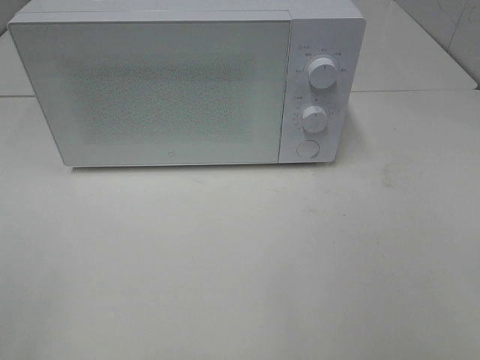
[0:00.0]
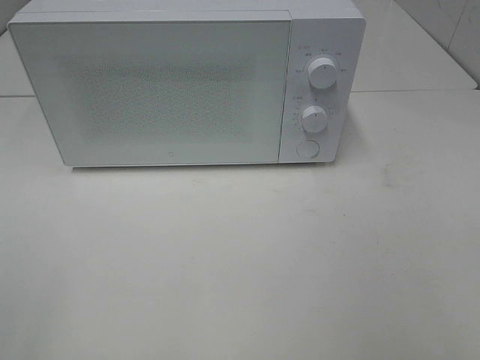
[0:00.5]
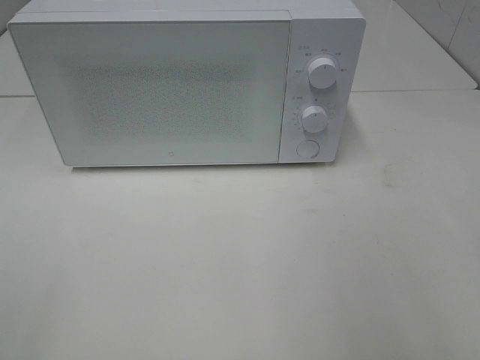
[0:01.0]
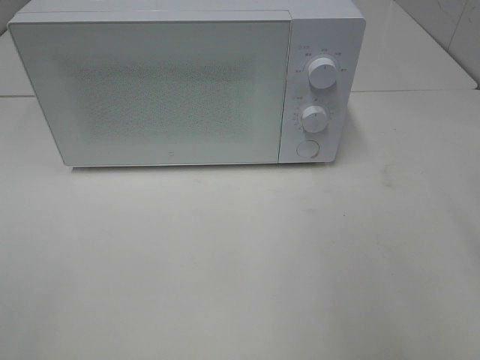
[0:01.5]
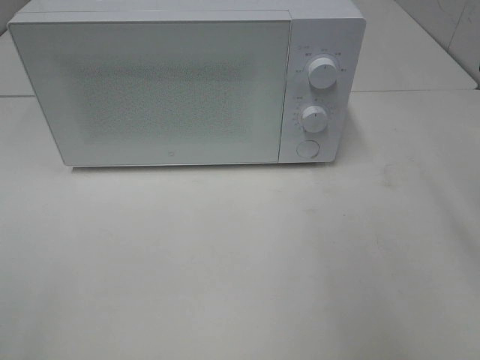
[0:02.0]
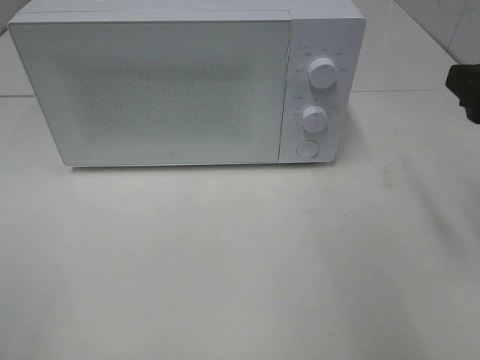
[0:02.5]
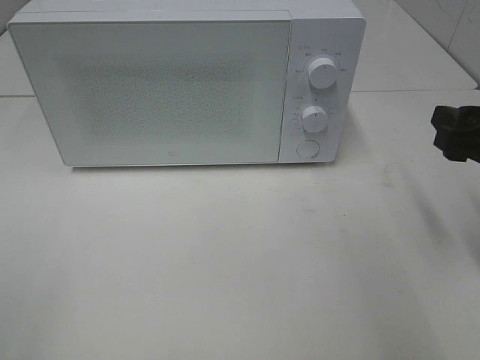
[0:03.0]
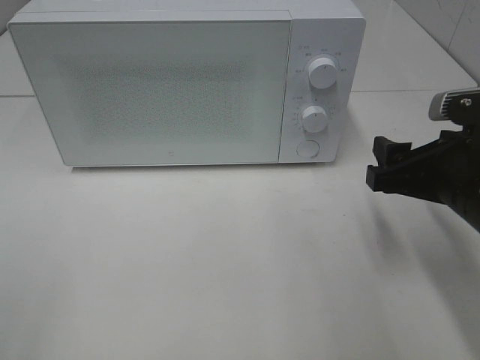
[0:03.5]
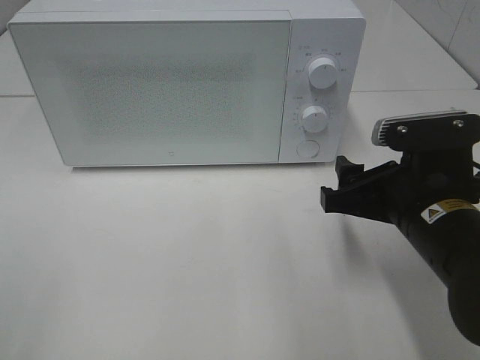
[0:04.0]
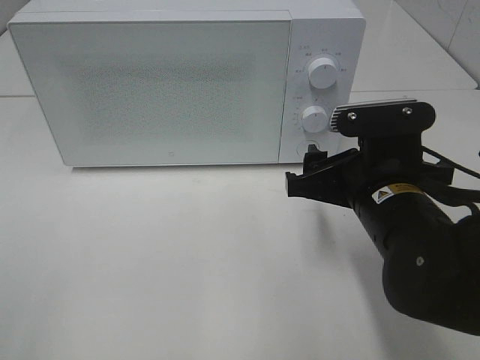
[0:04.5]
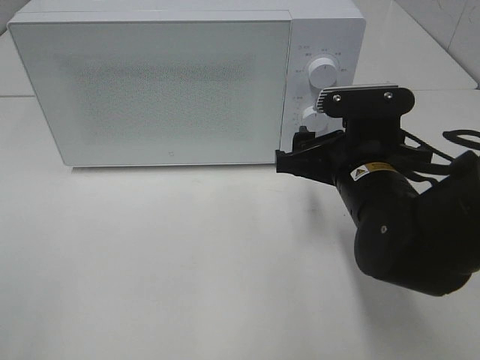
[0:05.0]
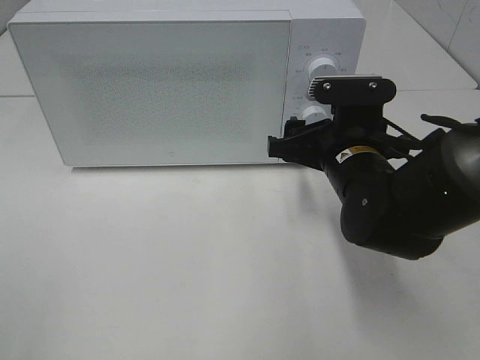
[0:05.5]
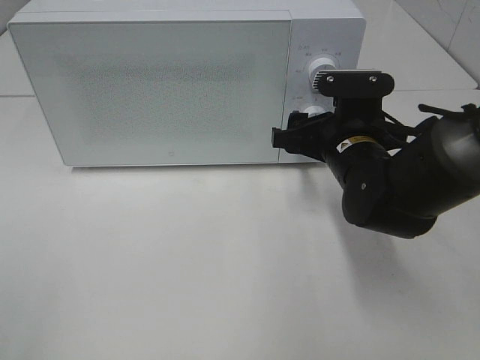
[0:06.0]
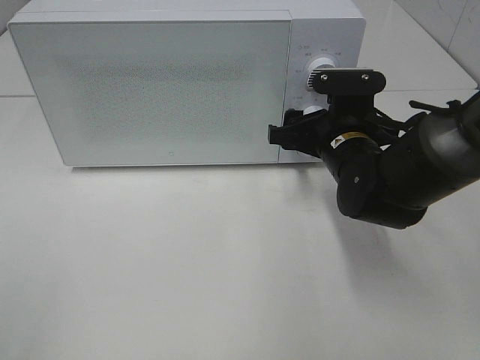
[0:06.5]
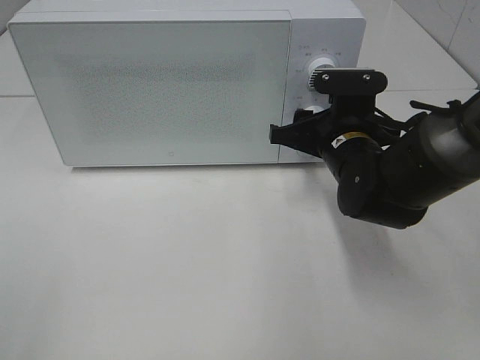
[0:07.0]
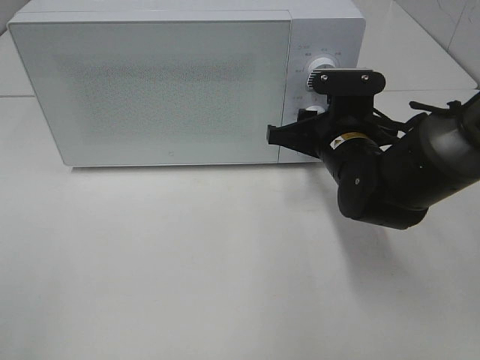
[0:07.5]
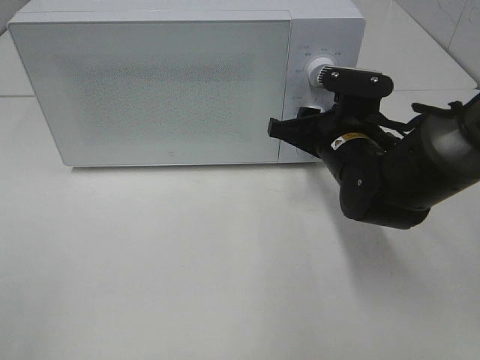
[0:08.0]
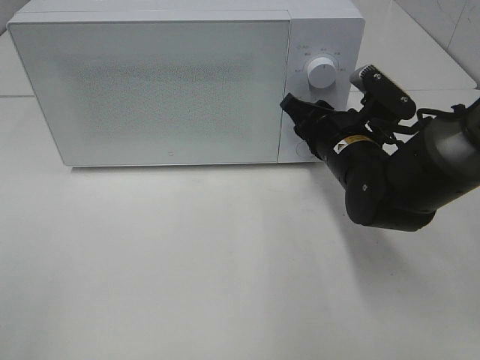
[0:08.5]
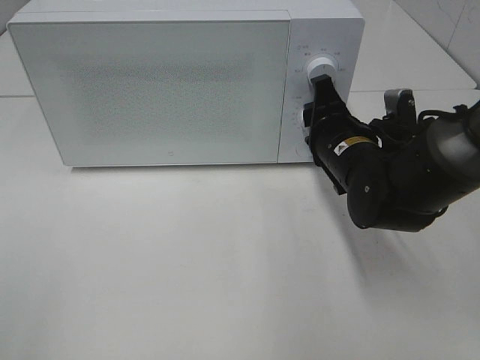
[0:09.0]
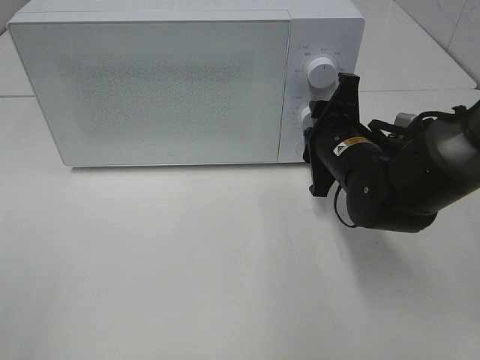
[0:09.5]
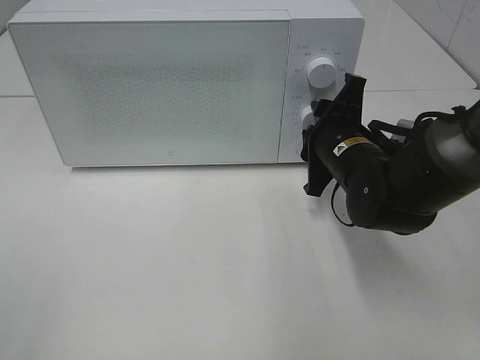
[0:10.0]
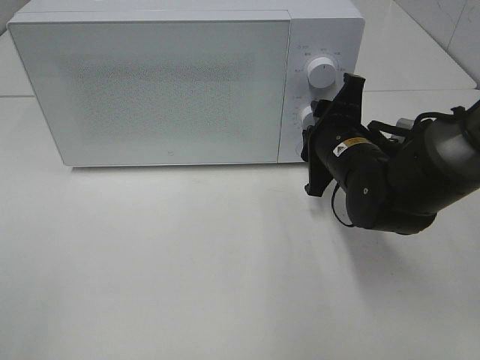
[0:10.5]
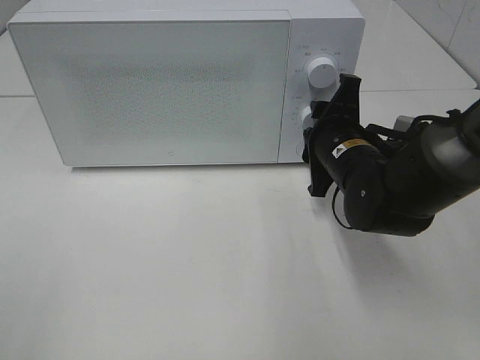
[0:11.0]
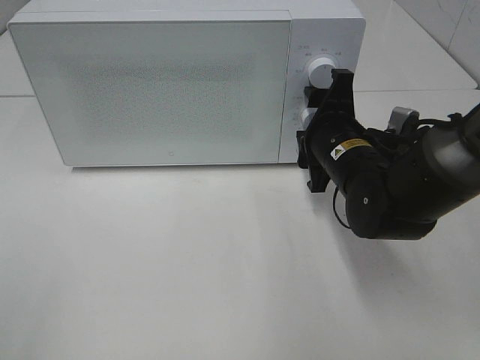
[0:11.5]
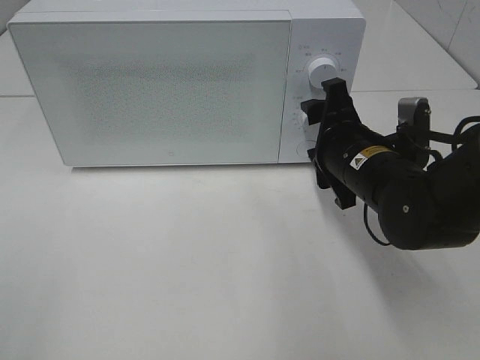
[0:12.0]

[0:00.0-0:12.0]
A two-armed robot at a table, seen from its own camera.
Task of the whole recording: Heat the burger.
Step, 0:00.0 to 0:11.5: Right hand: twist timer button.
0:02.0 to 0:04.0: The right gripper shifts approximately 20 cm downward and to the left.
0:04.0 to 0:06.0: The right gripper moves forward, roughly 10 cm.
0:06.0 to 0:08.0: The right gripper closes.

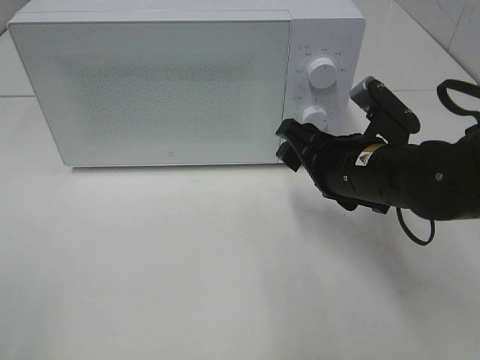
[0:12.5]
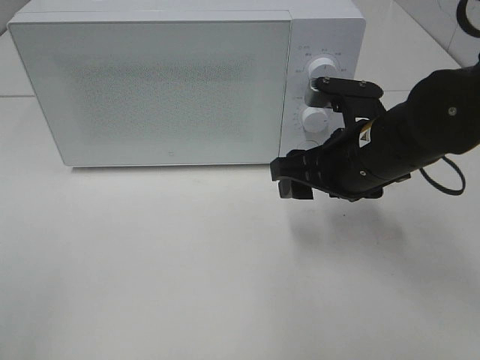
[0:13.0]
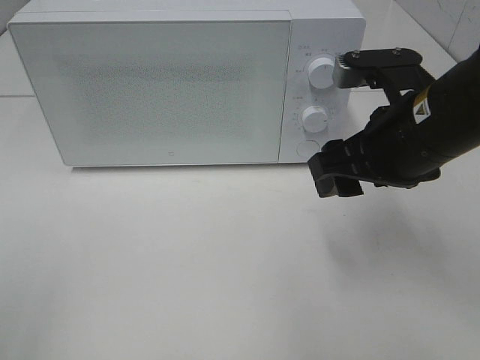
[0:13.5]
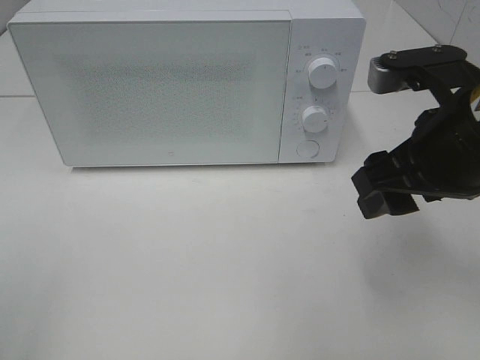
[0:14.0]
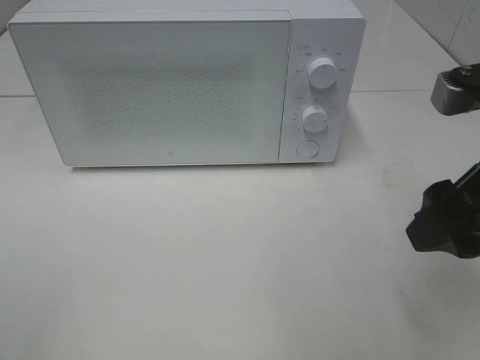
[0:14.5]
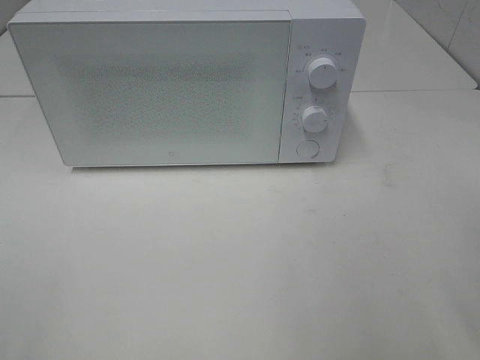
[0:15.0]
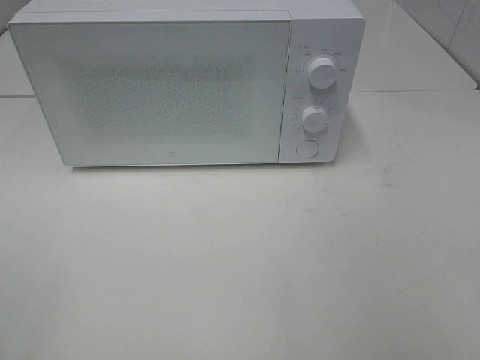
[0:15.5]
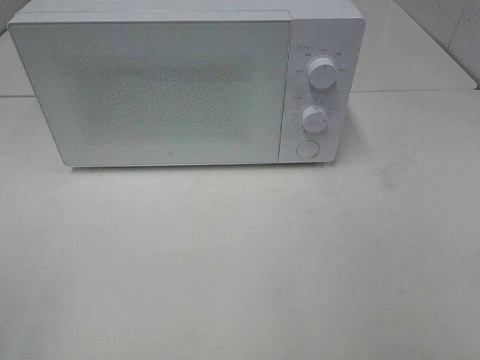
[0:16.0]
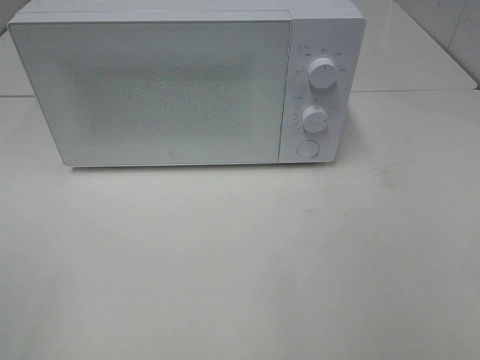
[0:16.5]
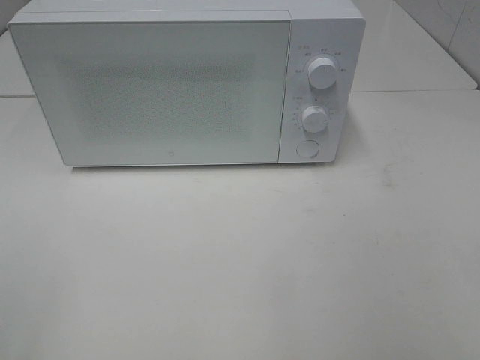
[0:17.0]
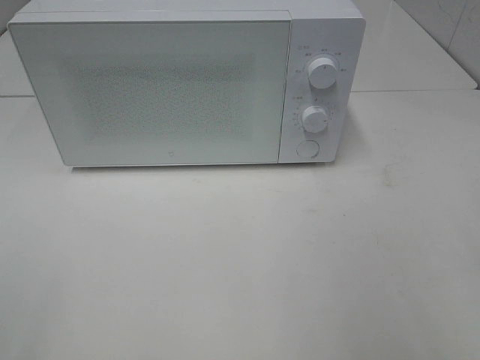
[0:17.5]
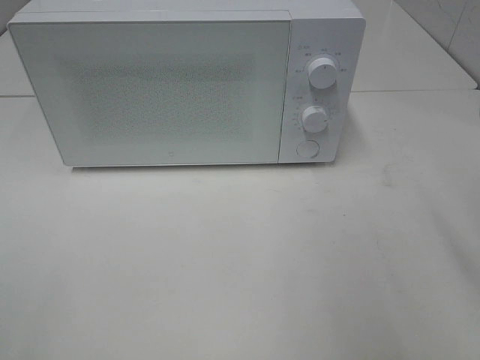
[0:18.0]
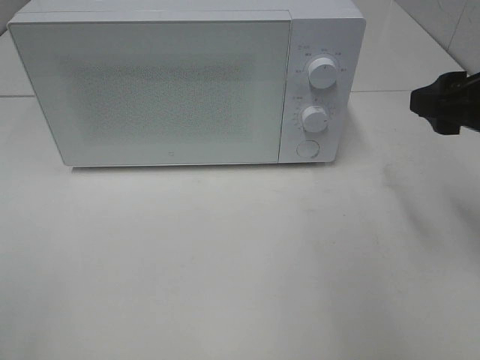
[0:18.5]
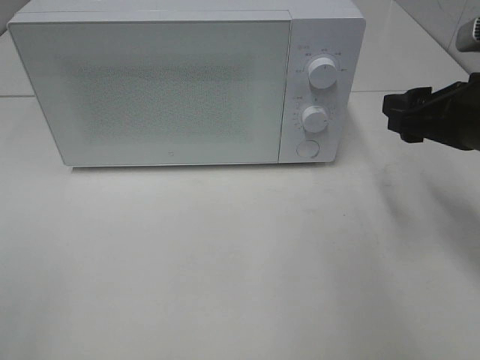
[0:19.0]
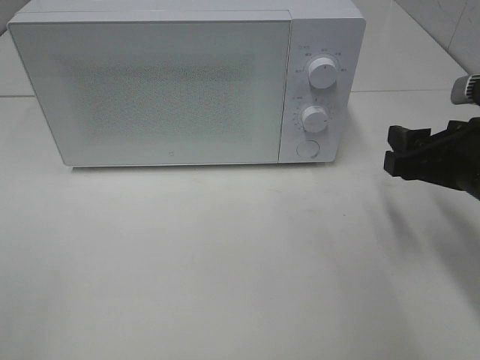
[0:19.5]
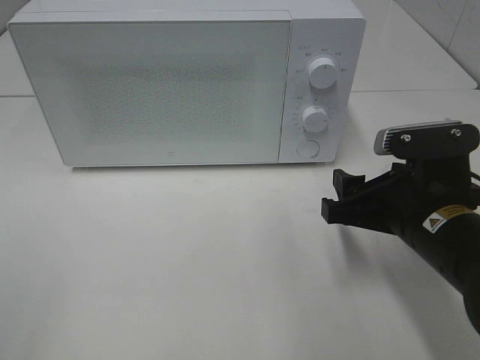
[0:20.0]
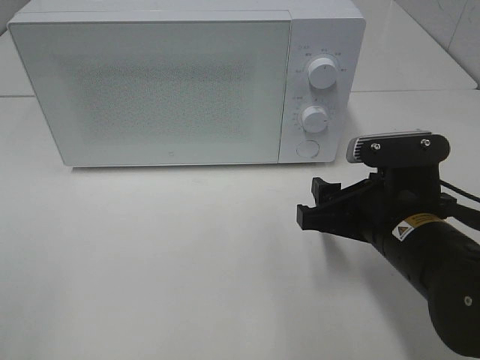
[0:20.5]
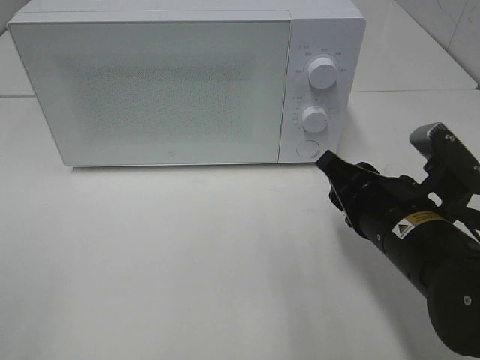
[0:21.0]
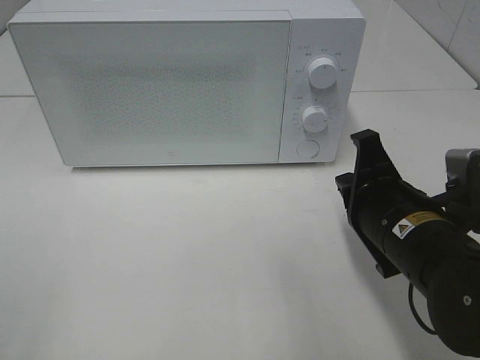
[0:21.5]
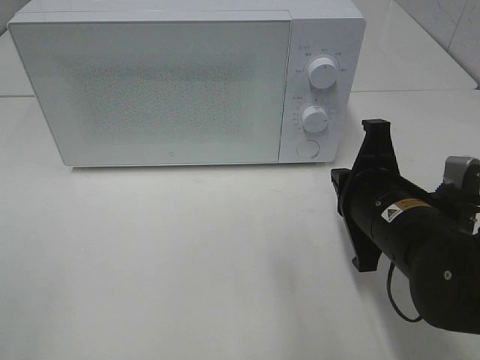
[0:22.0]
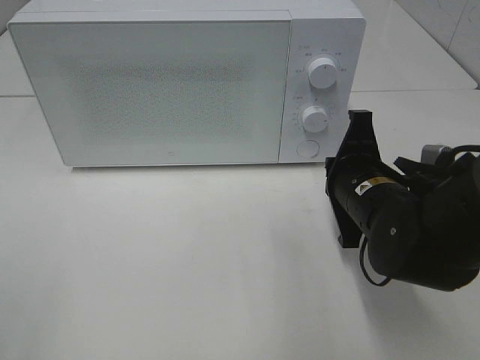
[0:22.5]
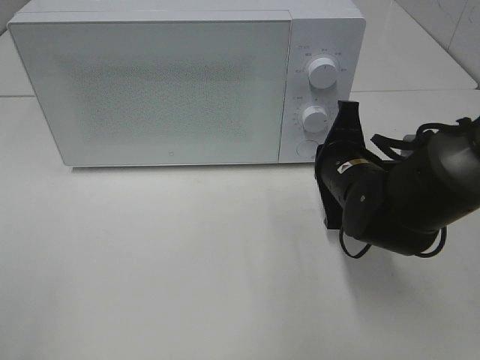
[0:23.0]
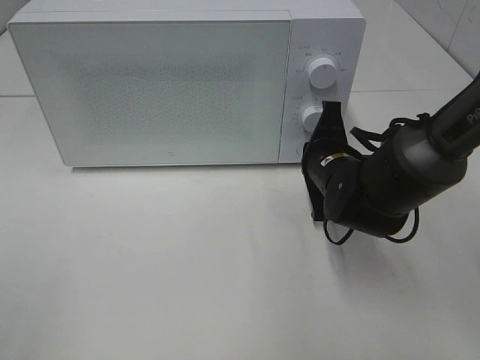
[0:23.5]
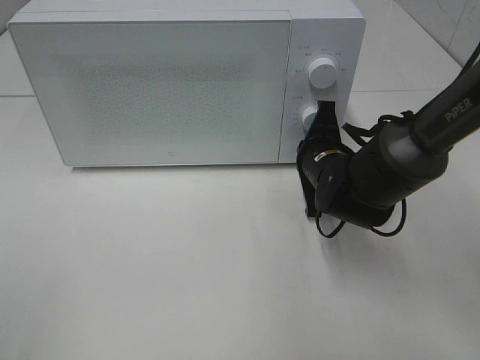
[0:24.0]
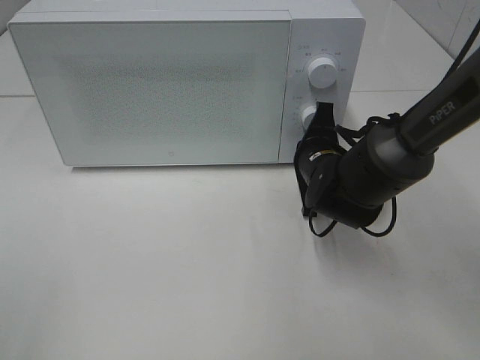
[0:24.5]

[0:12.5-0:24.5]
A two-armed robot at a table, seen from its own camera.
Task of the whole recording: Heat the burger.
0:12.5 to 0:14.5: The right gripper moves backward, upward and to the right, about 15 cm.
0:14.5 to 0:16.5: The right gripper heads backward and to the right, covering about 20 cm.
0:16.5 to 0:18.5: The right gripper shifts approximately 25 cm forward.
0:18.5 to 0:20.5: The right gripper moves downward and to the left, roughly 15 cm.
0:20.5 to 0:22.5: The right gripper is displaced forward by roughly 5 cm, and closes.
0:22.5 to 0:24.5: The right gripper goes some 10 cm forward.

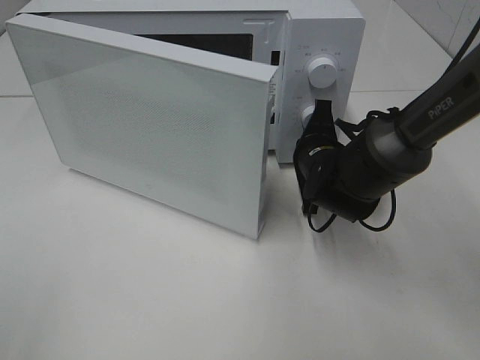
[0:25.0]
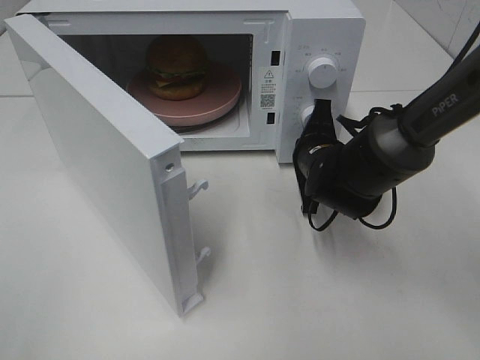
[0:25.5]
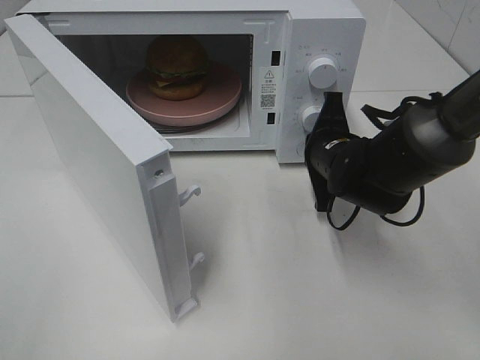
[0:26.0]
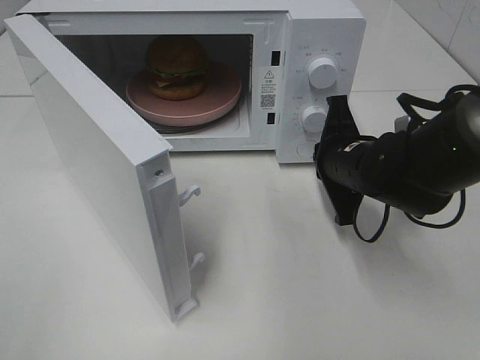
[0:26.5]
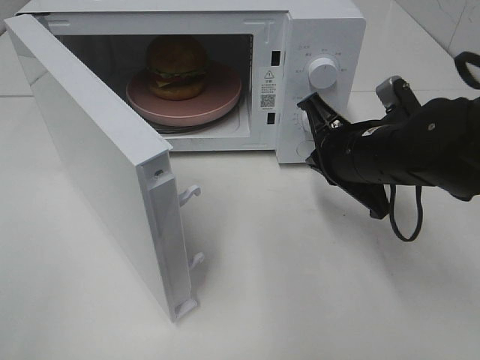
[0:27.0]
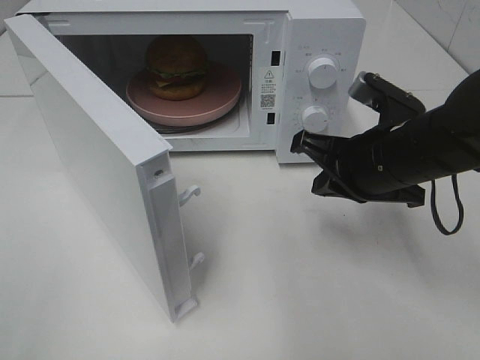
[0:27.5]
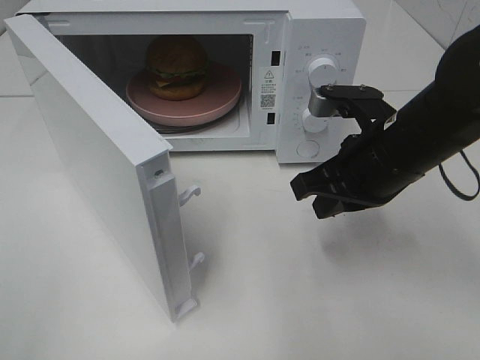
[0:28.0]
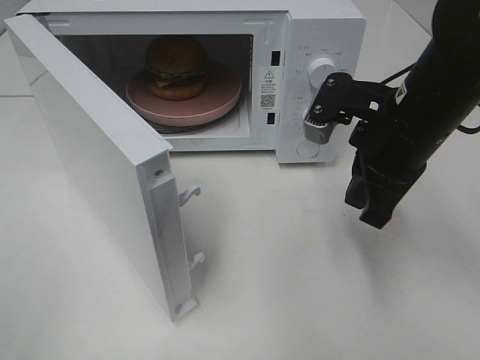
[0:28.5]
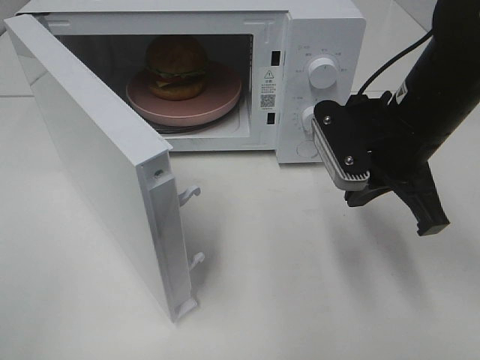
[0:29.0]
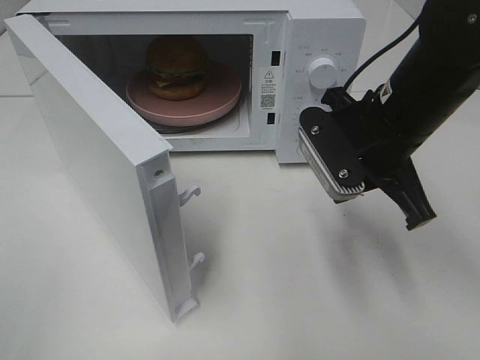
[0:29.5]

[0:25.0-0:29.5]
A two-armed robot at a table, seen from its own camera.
Task of the whole recording: Heat the burger.
0:25.0 to 0:27.0: The right gripper shifts roughly 10 cm upward and backward.
0:27.0 to 0:29.5: The right gripper heads upward, covering approximately 5 cm.
